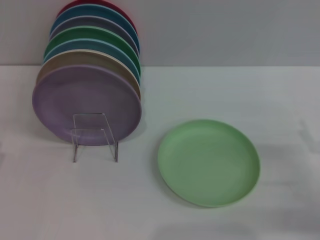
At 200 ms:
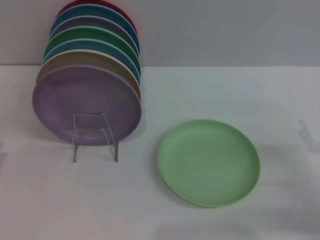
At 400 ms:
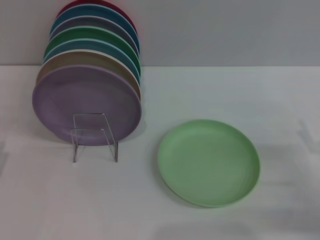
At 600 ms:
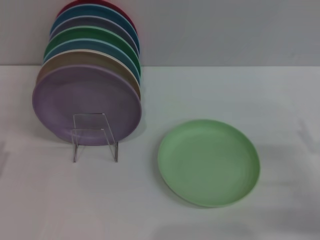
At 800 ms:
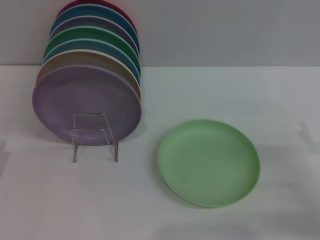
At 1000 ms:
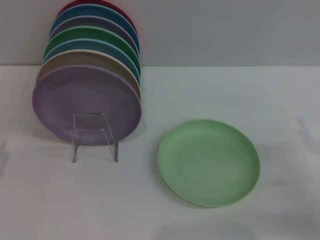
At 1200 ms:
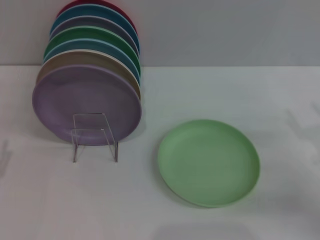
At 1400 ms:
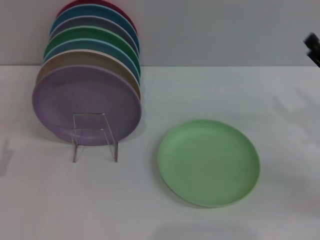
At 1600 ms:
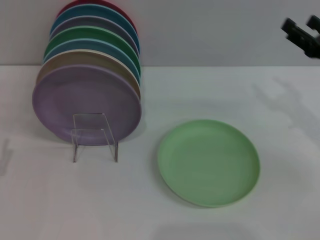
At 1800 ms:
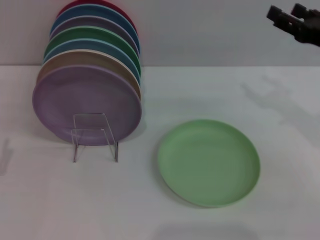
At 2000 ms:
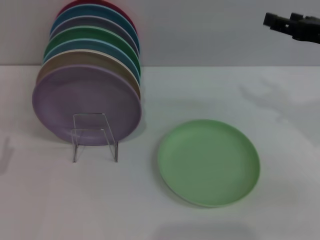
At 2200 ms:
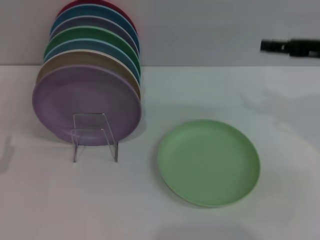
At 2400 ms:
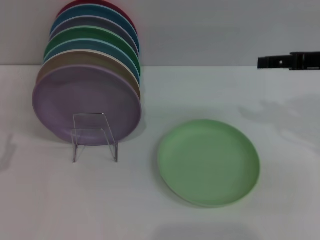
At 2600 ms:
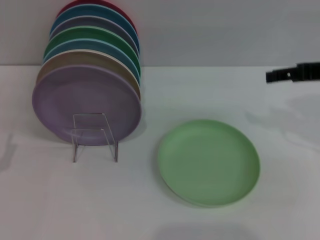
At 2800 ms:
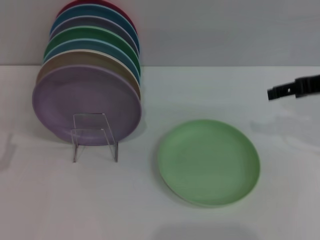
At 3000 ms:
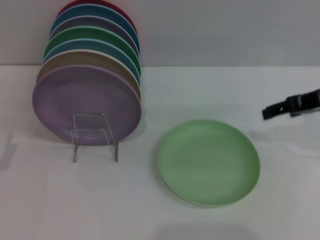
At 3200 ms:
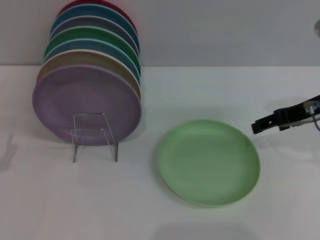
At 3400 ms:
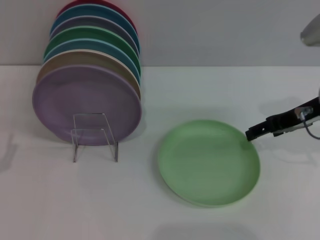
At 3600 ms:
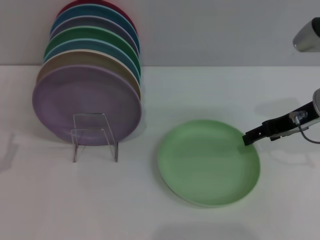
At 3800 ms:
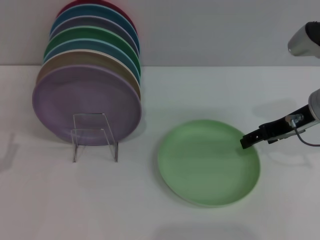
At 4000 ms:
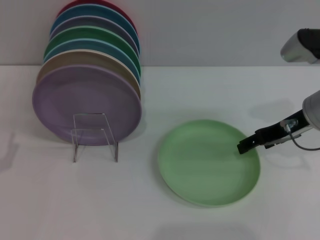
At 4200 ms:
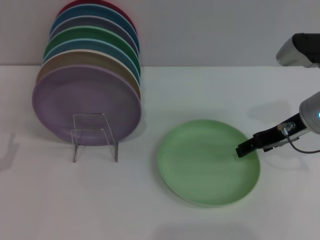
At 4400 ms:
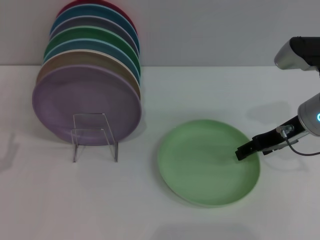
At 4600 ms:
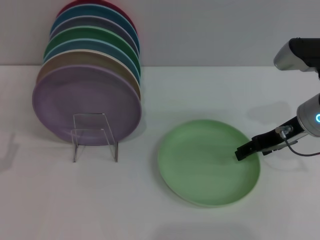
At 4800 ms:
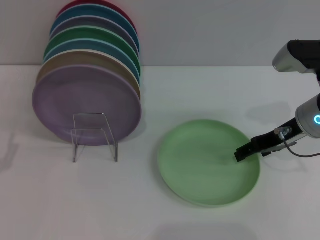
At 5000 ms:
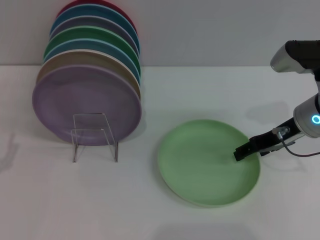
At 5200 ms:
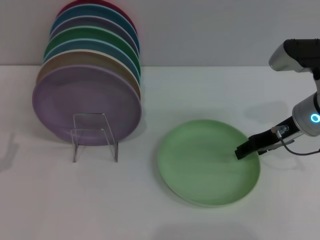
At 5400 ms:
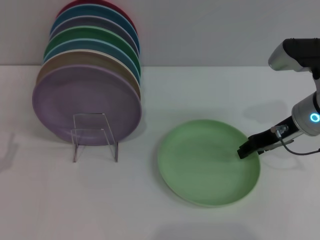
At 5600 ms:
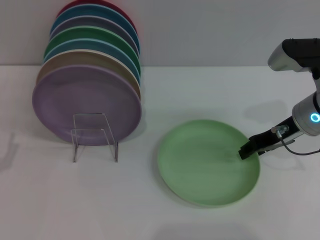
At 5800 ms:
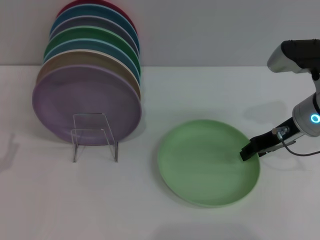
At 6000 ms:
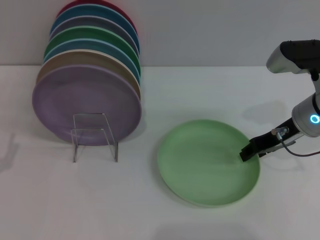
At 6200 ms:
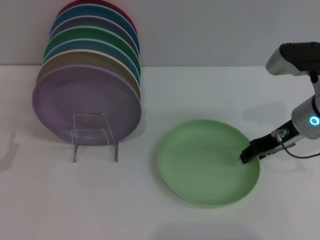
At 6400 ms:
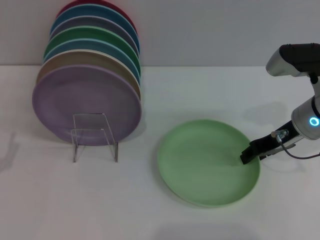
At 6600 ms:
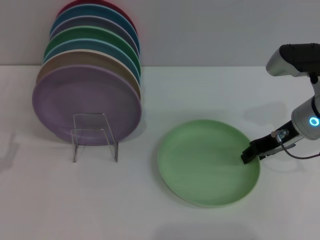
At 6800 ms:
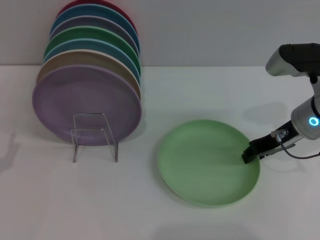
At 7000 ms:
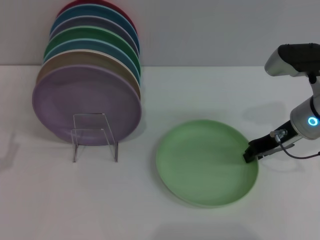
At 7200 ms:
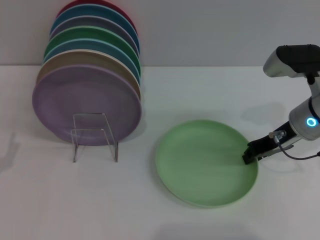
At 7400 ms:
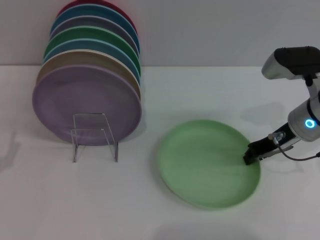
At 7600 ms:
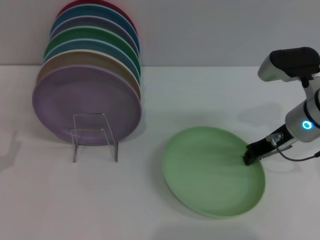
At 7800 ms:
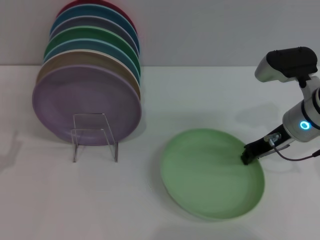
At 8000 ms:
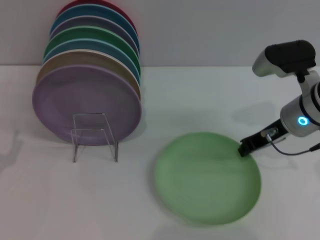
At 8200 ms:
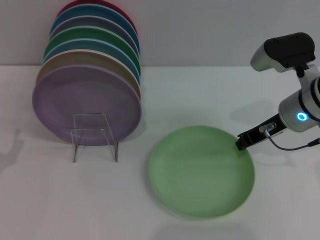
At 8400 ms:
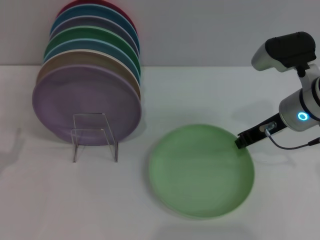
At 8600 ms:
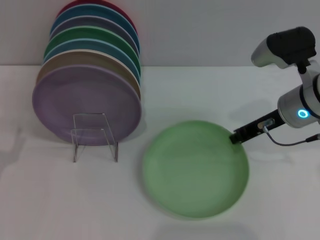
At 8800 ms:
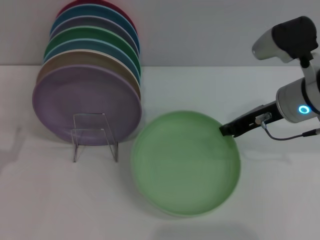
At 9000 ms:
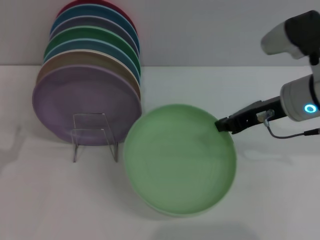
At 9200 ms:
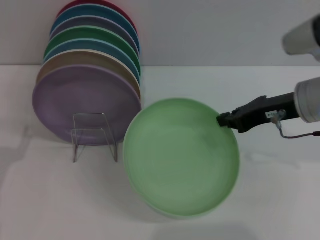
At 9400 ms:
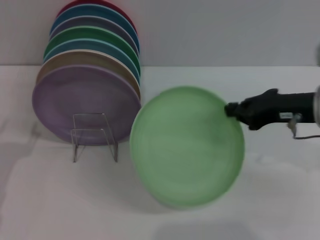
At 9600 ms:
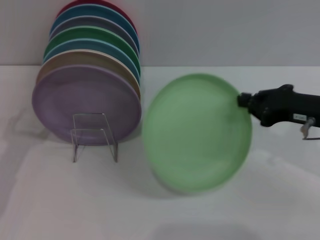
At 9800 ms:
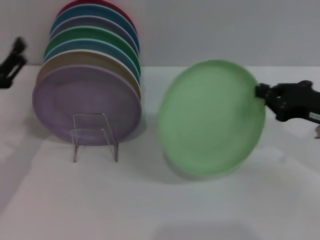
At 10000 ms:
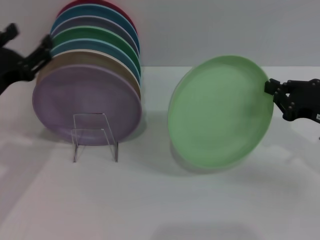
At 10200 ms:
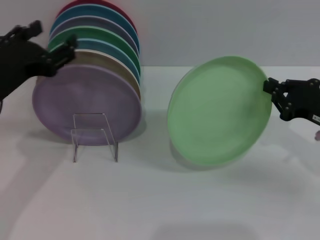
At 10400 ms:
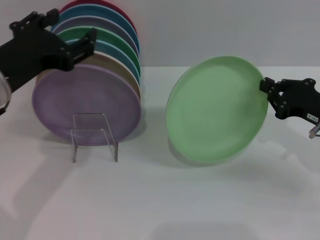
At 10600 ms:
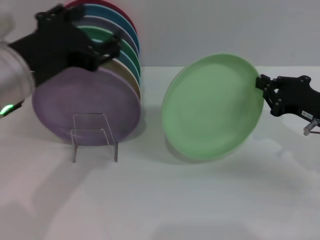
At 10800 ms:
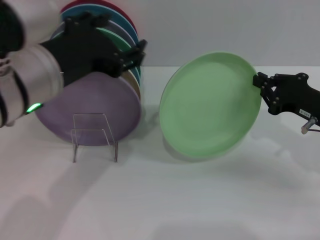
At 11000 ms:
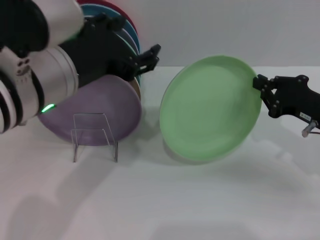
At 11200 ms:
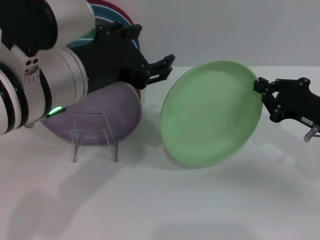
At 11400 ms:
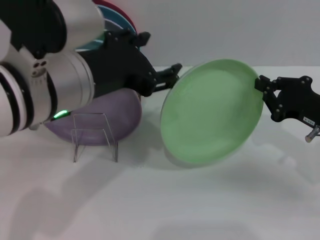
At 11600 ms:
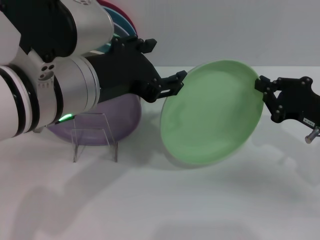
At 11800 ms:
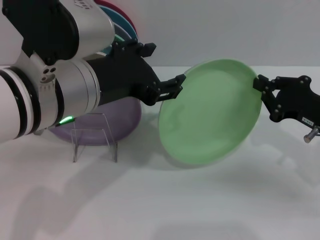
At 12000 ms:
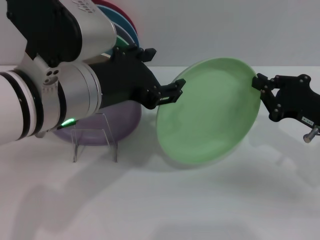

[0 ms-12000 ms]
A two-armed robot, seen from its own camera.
Task of the whole recording: Grip the plate with one hand, pass it to the other, then set it on the shelf.
Step, 0 ms to 9800 ms: Pick up the plate with the right gripper.
0 ms to 1600 ms: The right gripper shifts some 15 cm forward and upward.
1600 ms to 3000 ms: The right gripper heads upward, covering roughly 5 cm.
3000 ms to 4400 ms: The right gripper travels downward by some 5 cm.
4400 ms to 6000 ms: The right gripper closes up.
6000 ms to 7600 ms: The grippers move only a little.
7600 ms to 9000 ms: The right gripper ends up some 5 cm from where it was.
9000 ms to 10400 ms: The left gripper travels upward and to the right by roughly 20 cm. Meanwhile the right gripper travels to the right and downward by roughly 10 cm.
10400 ms to 12000 ms: The left gripper goes about 10 cm to the right.

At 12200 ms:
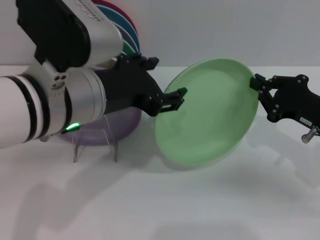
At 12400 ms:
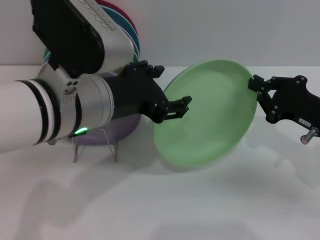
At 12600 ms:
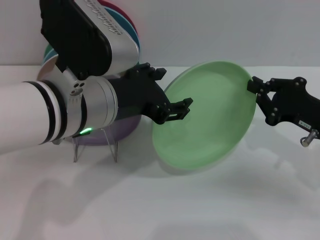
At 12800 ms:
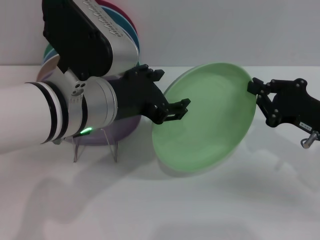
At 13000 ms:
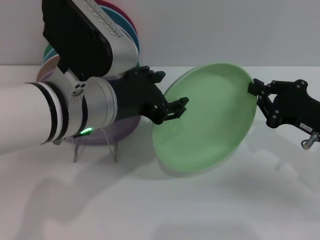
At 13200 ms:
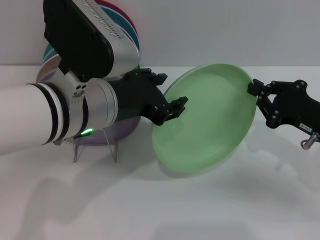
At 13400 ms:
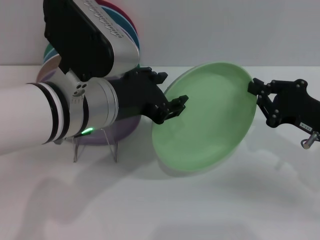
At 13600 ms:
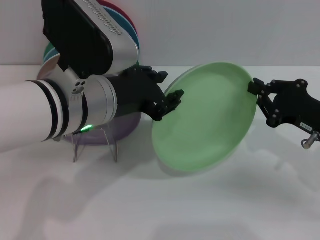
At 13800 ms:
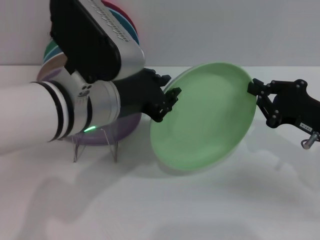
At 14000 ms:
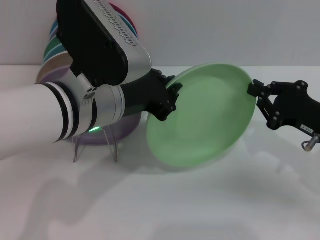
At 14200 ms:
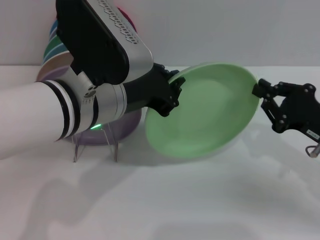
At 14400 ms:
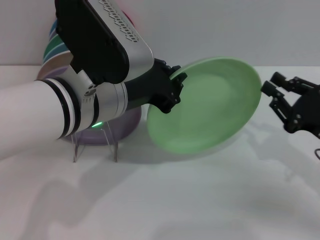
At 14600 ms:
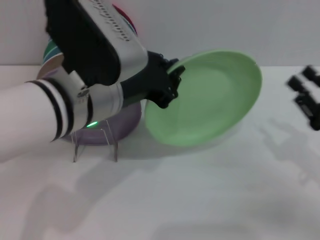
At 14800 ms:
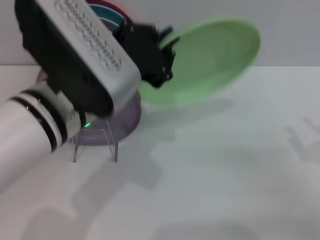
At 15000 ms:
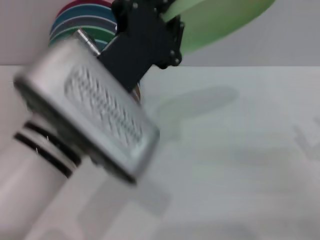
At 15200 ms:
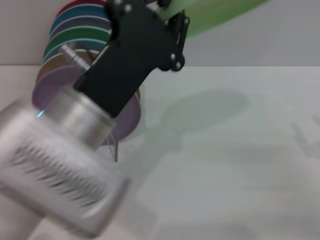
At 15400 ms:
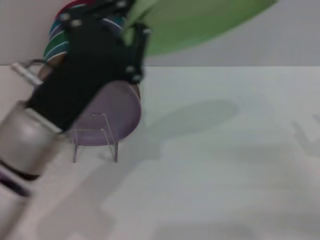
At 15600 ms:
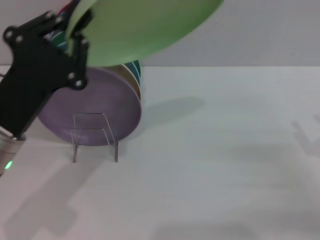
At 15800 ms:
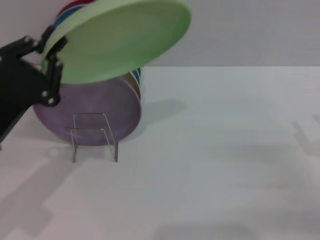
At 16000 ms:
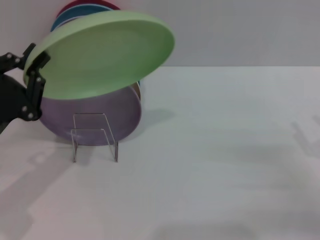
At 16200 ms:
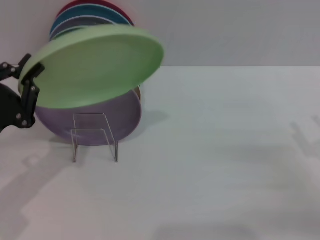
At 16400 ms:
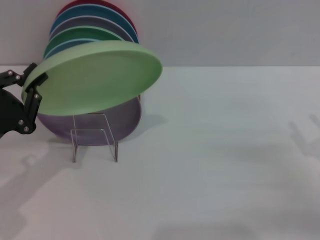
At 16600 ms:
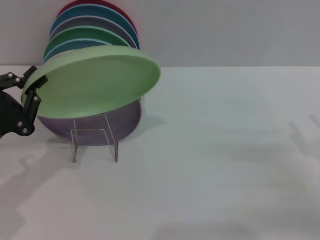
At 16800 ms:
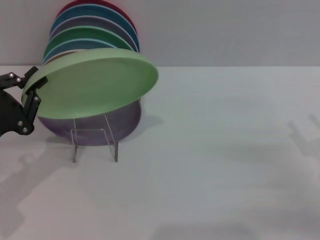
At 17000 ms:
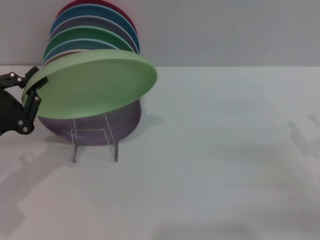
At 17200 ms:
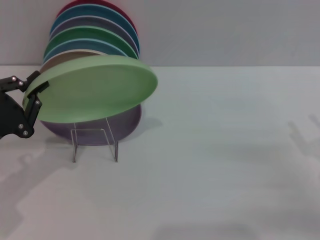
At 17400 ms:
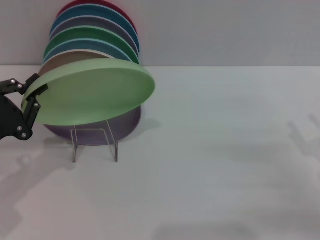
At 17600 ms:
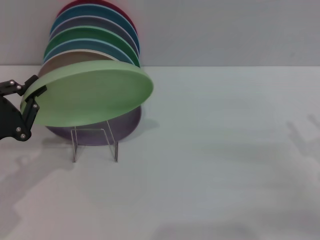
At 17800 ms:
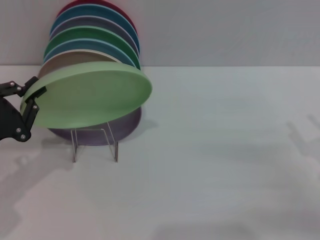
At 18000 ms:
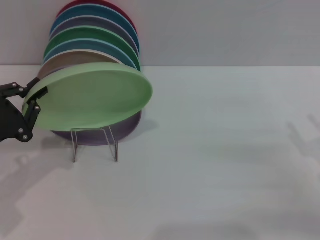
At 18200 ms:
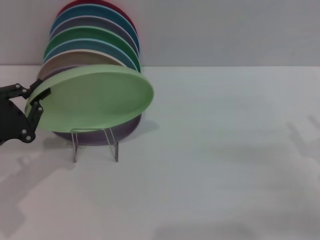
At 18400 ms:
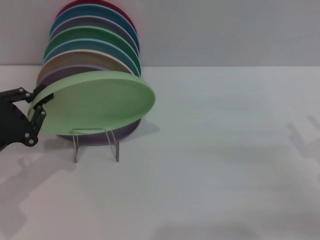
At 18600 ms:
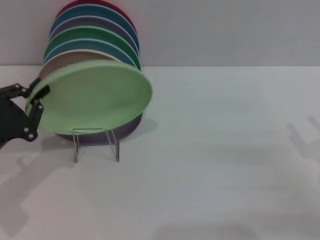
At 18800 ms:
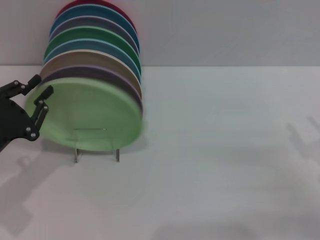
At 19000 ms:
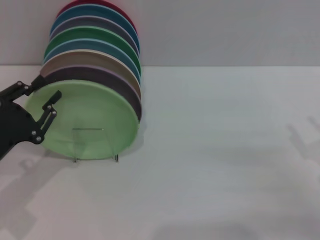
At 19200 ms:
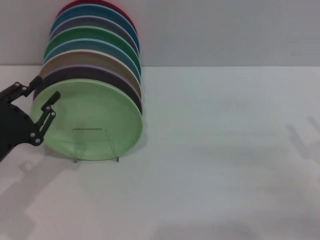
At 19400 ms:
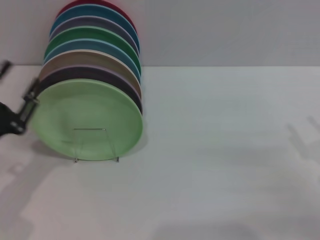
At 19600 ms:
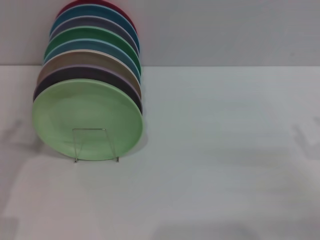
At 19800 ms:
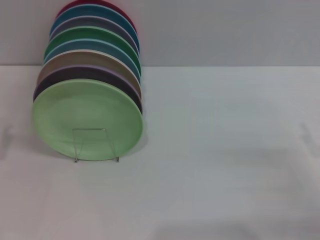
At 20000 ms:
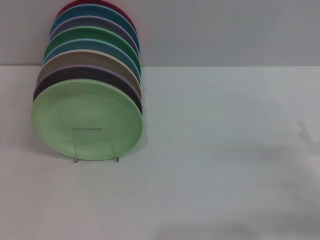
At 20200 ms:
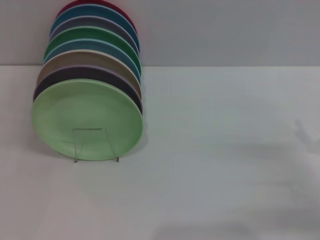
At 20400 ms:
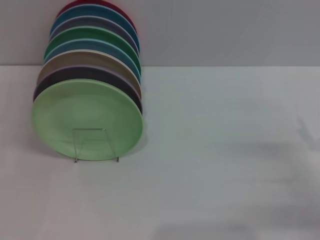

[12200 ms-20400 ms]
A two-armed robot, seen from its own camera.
Task of the whole recording: Grip the plate with one hand, pass it to the other, then set it on the shelf.
Step, 12200 ms to 15800 ms: Pass the plate from the right gripper to the left gripper.
Step, 16000 ms to 19400 ms: Place the plate on the shelf with the left gripper.
12200 ms to 13800 ms: The grippers make only small movements.
13800 ms to 15400 ms: The left gripper travels backward by approximately 5 cm, and closes up. Meanwhile the right gripper travels backward and to the right by some 10 cm, and opens.
15400 ms to 17200 ms: The left gripper travels to the left and downward by about 15 cm.
17200 ms to 18800 ms: There are only small adjustments of the grippers.
18800 ms to 20400 ms: The left gripper heads backward, covering approximately 5 cm, and opens.

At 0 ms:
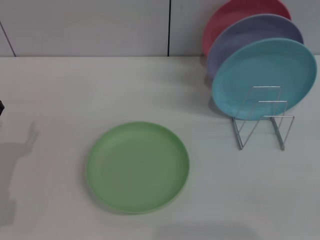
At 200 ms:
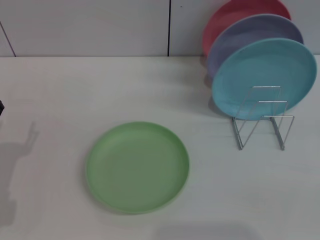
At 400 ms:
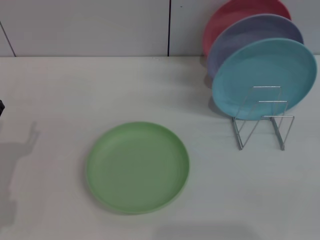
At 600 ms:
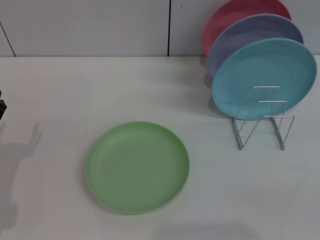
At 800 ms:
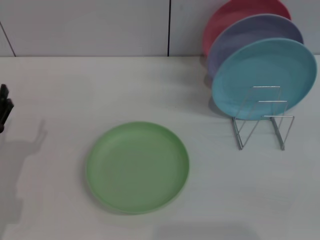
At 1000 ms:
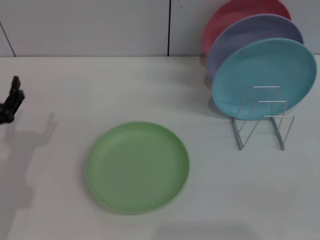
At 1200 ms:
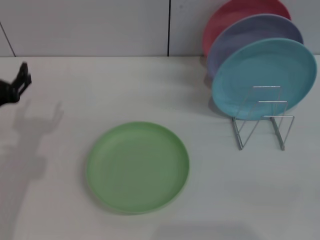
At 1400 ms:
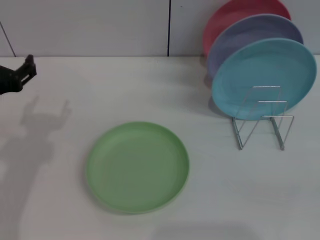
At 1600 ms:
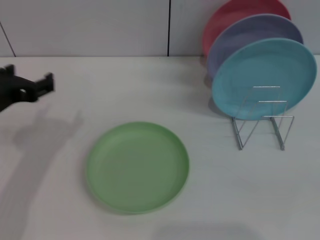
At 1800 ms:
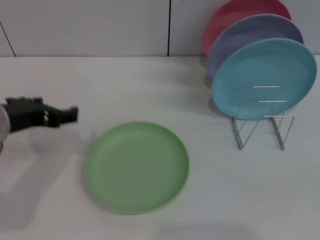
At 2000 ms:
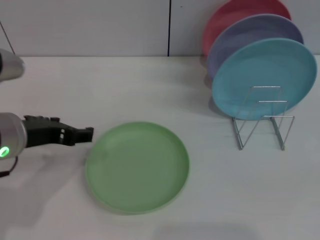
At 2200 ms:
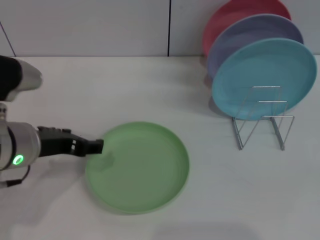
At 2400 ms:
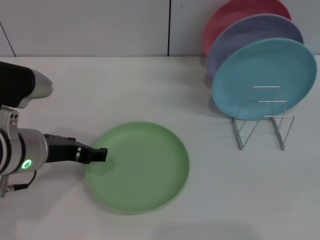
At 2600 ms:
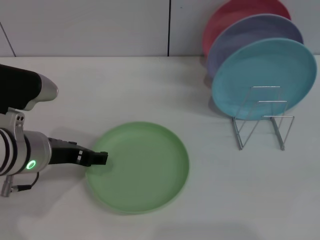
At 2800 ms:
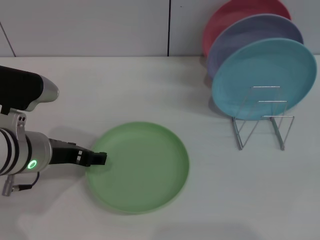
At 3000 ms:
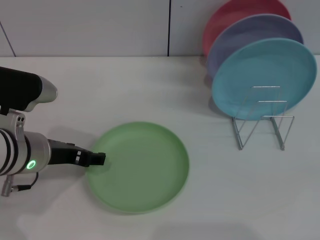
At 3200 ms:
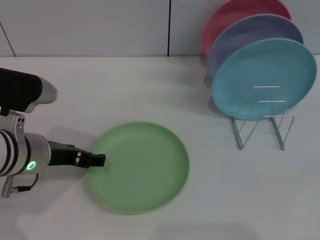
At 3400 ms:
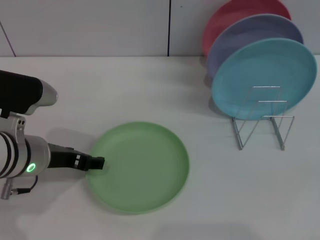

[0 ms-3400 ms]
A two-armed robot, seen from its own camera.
Task of the whole recording: Grip the plate with one hand, pass it to the other, then set it on the shelf.
0 ms to 1600 ms: The left gripper is displaced upward and to the right by about 15 cm.
1600 ms to 3400 ms: The left gripper moves downward, roughly 5 cm.
